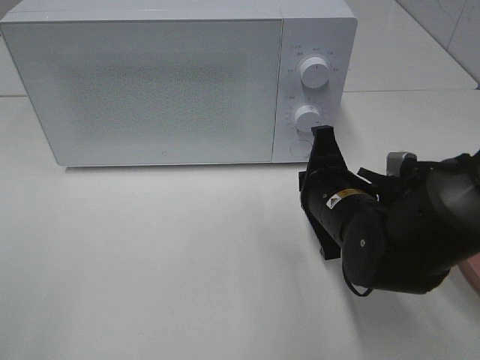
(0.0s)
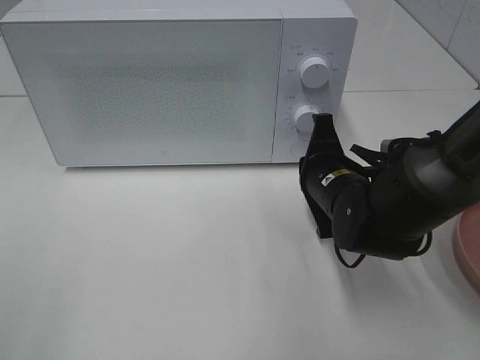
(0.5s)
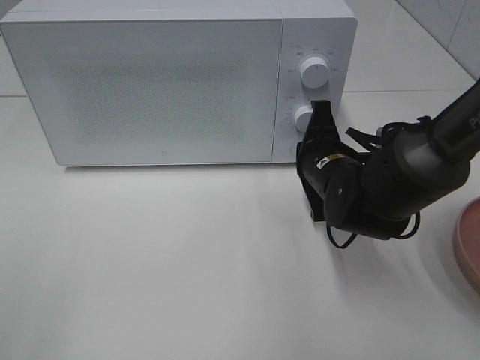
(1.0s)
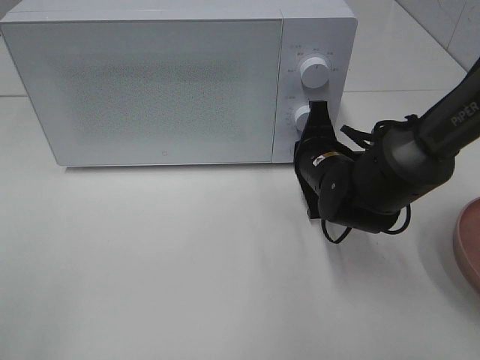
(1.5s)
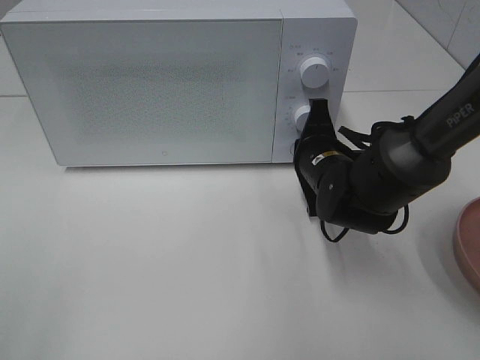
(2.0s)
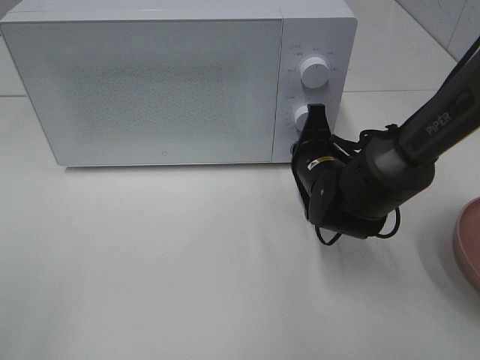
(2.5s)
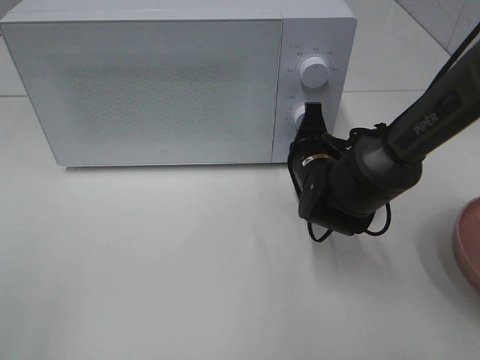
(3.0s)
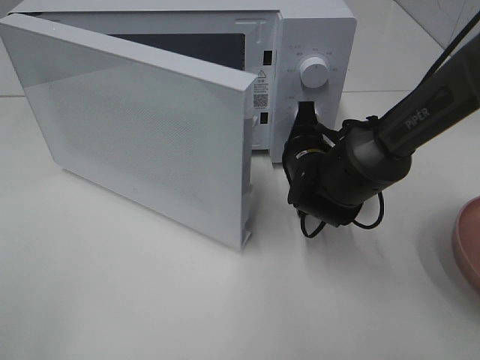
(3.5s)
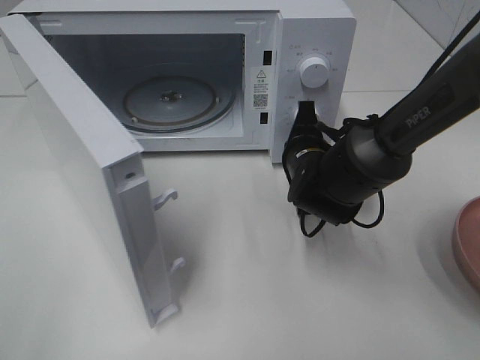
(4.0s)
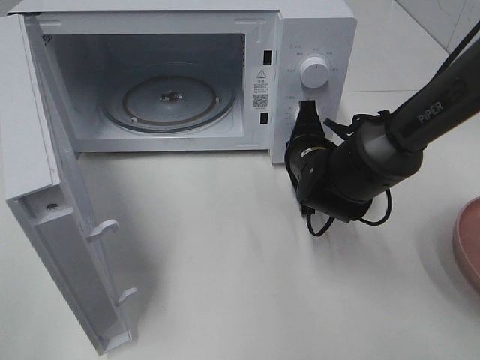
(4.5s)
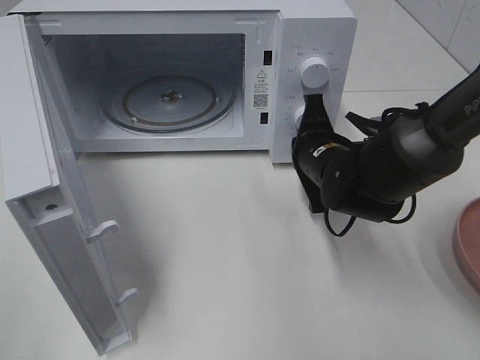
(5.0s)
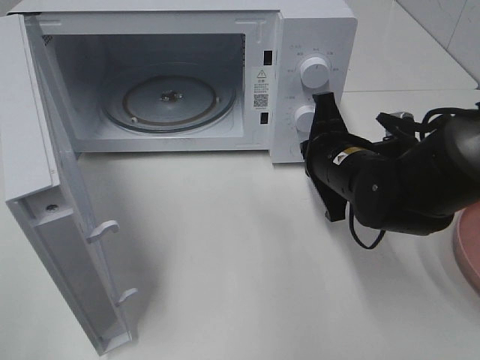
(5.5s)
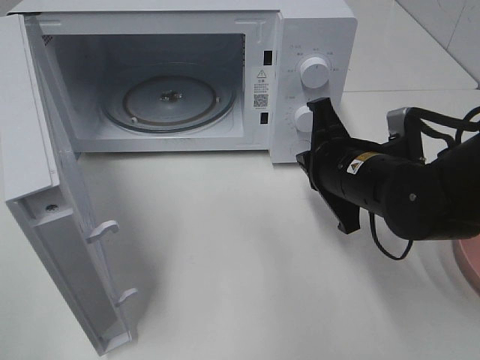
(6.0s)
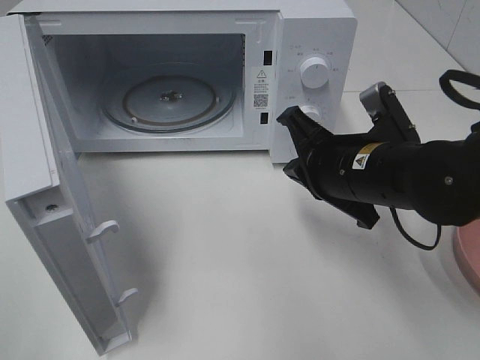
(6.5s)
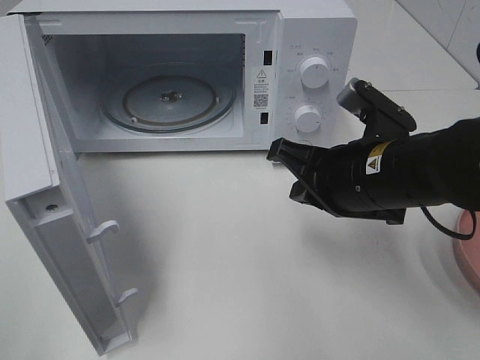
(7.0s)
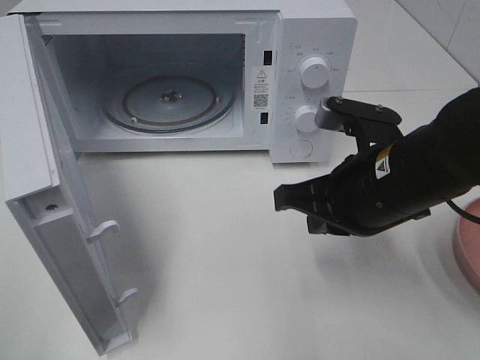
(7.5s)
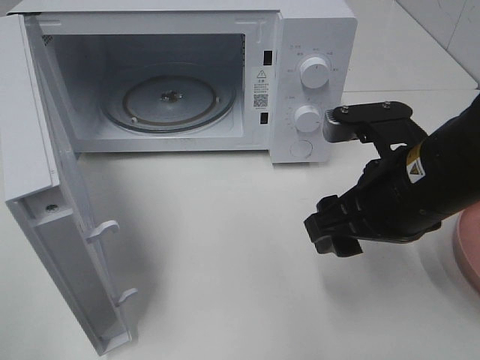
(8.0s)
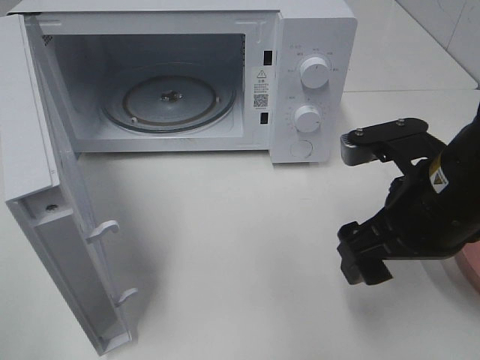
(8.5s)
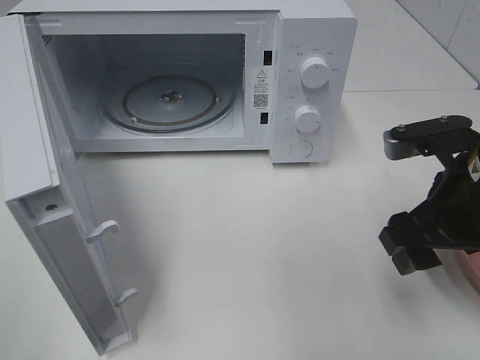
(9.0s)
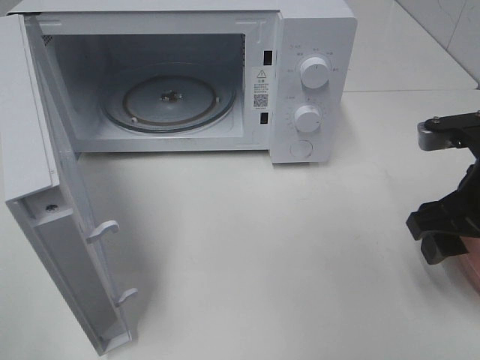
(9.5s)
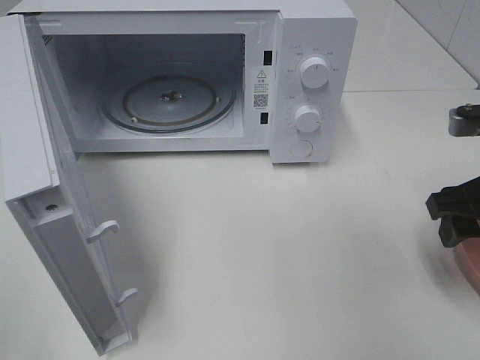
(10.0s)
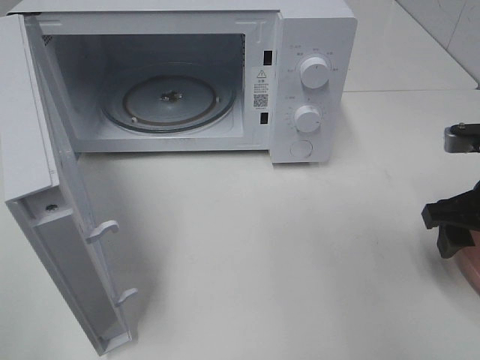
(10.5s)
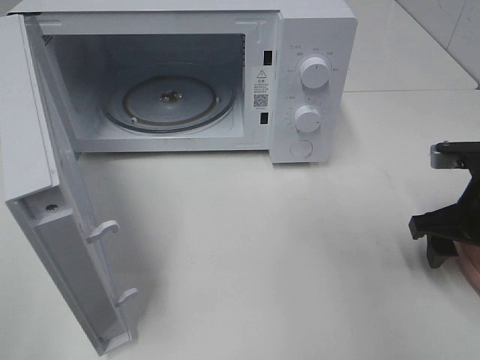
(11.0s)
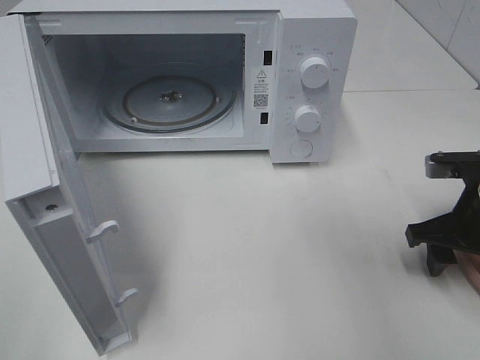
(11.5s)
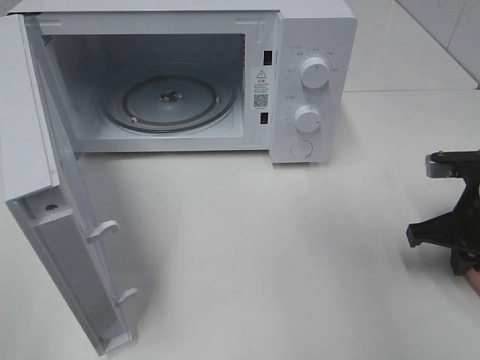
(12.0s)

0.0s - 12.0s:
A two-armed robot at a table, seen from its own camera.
Task of the whole recording: Heat the burger.
Step, 0.0s - 5.0s: Right hand: press the switch.
0.0s - 2.0s: The right gripper travels forward by roughly 5 cm.
4.0s - 6.0s: The right gripper is displaced backward and upward by some 10 cm.
6.0s - 8.0s: The right gripper moves backward and upward, approximately 10 cm, and opens up.
8.0s - 10.0s: The right gripper moves to the right, approximately 10 cm.
10.0s - 12.0s: The right gripper is displaced downward by roughly 5 cm, and closes up.

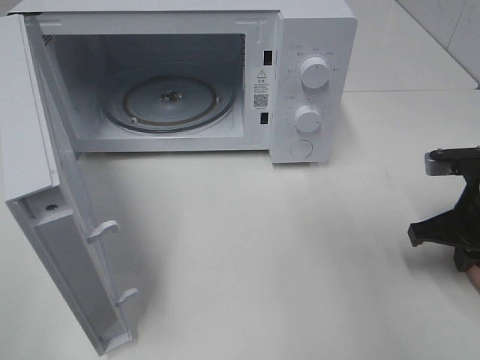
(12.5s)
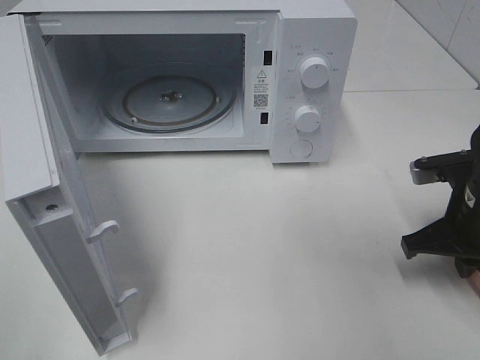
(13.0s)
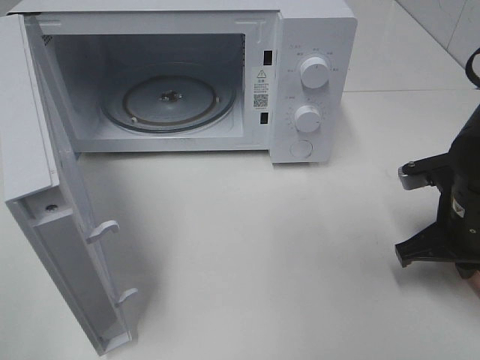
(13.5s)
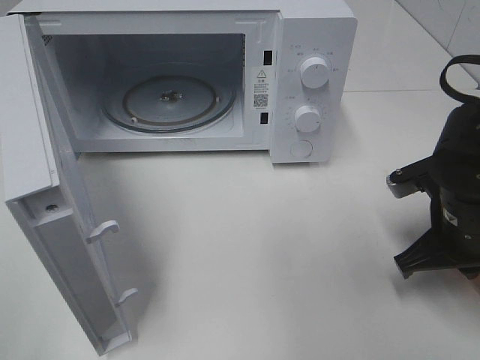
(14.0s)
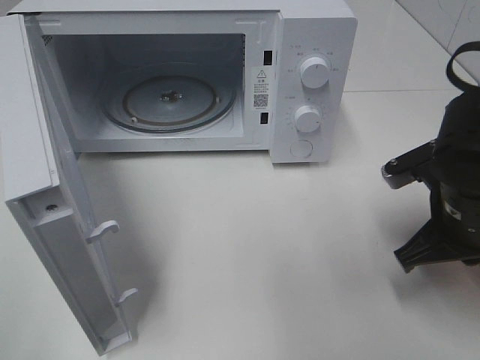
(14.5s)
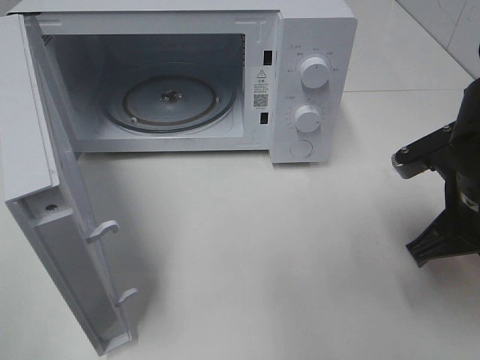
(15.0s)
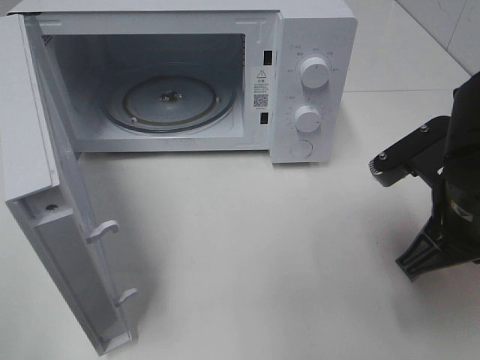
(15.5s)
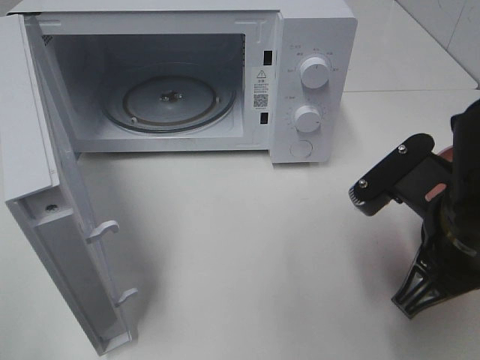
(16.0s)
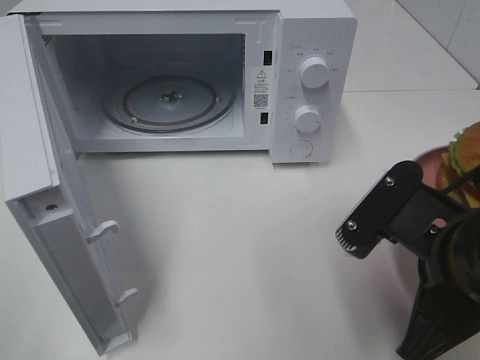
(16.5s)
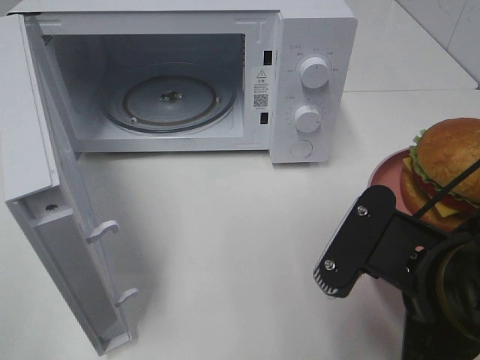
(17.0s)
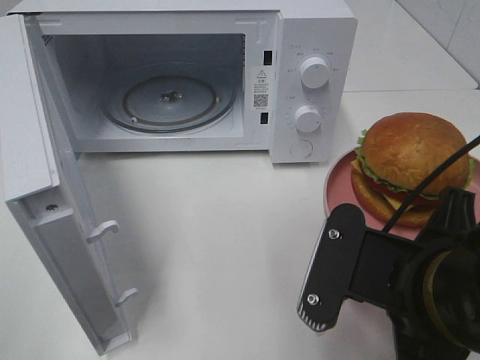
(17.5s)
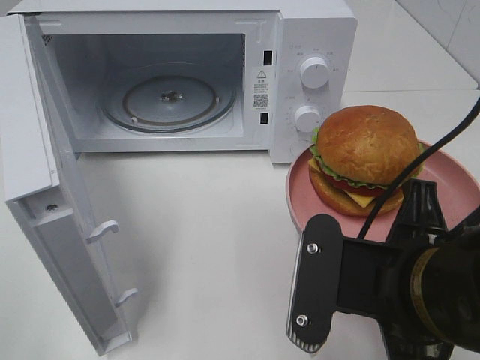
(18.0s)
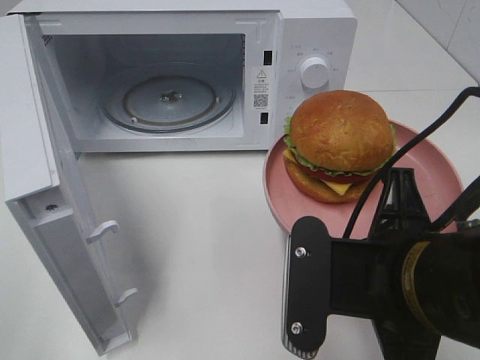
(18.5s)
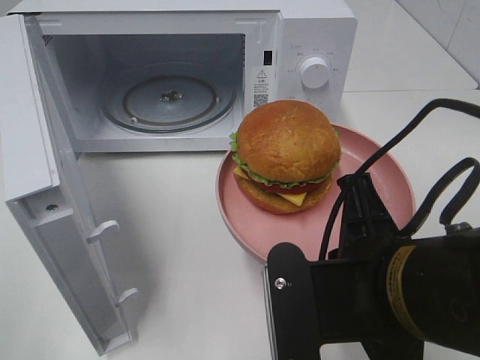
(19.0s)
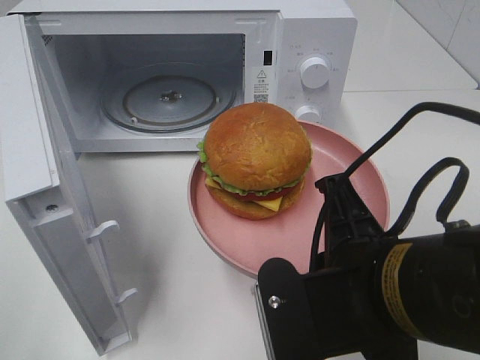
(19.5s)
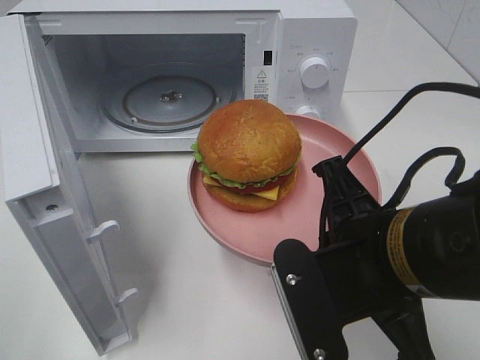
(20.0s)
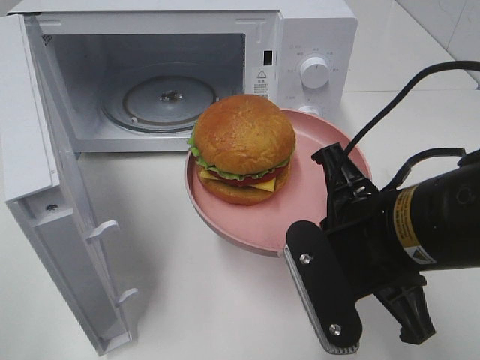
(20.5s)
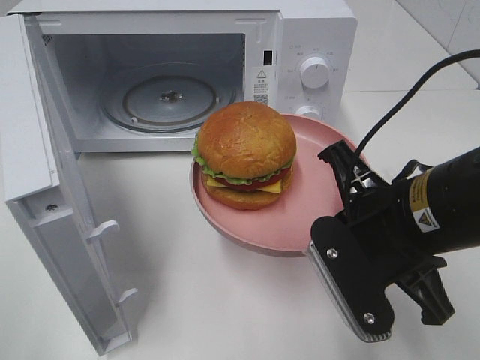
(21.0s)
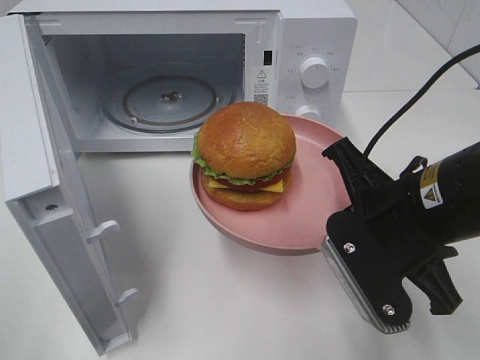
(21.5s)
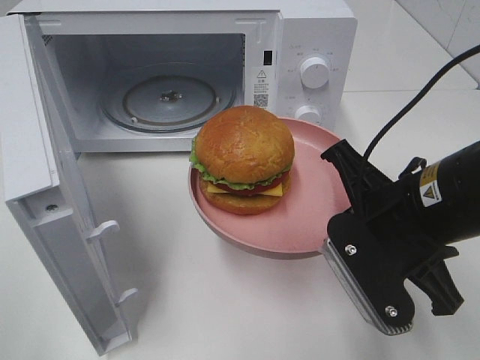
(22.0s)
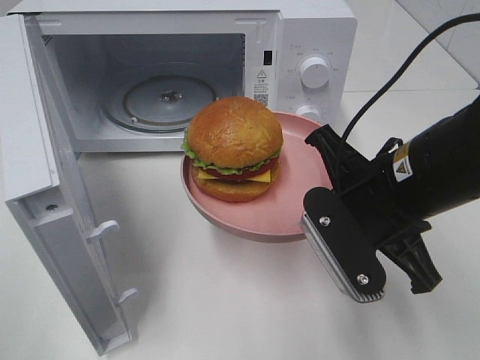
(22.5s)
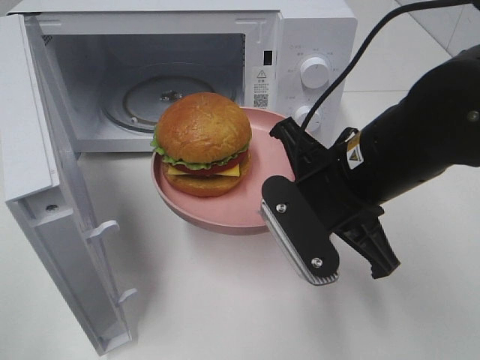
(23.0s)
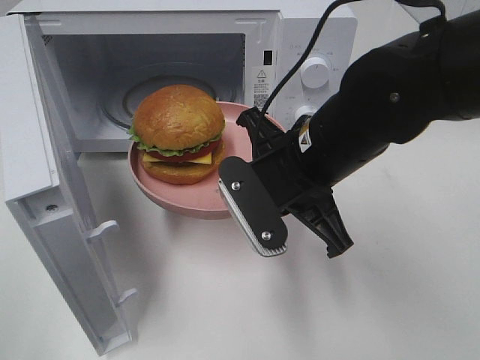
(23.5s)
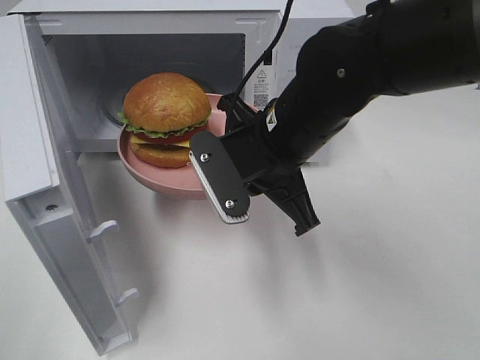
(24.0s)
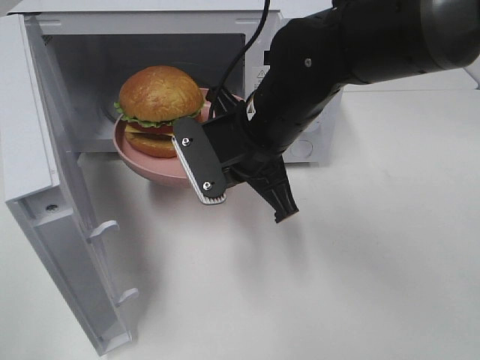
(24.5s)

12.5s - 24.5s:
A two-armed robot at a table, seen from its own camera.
Task of the whole recording: Heat the burger.
12.5s - 14.5s: The right gripper travels to the left by approximately 5 cm.
14.5s - 16.5s: The right gripper moves backward and to the left, roughly 10 cm.
20.5s - 22.5s: The right gripper moves roughly 5 cm.
22.5s - 24.5s: The right gripper heads to the left and forward, covering approximately 15 cm.

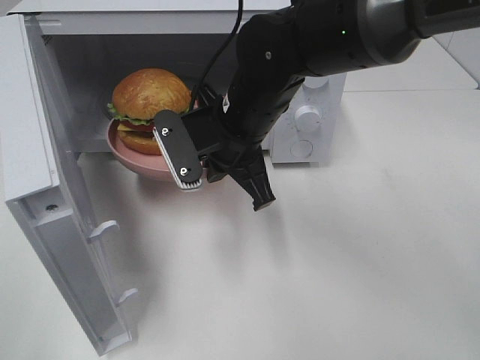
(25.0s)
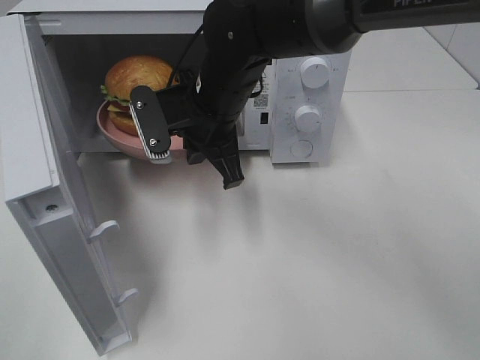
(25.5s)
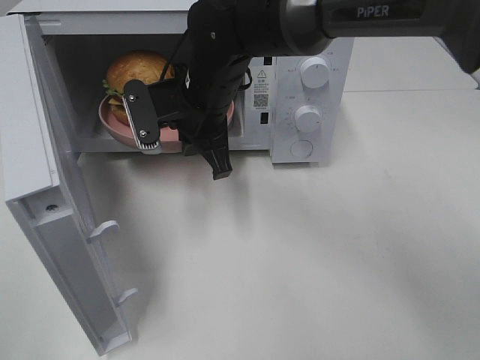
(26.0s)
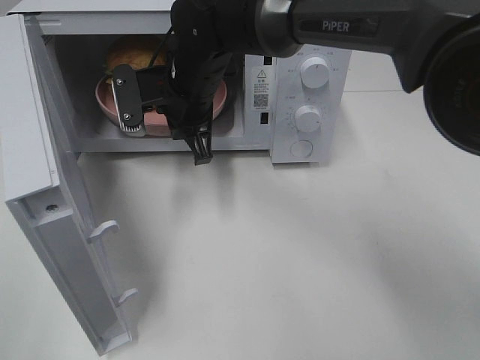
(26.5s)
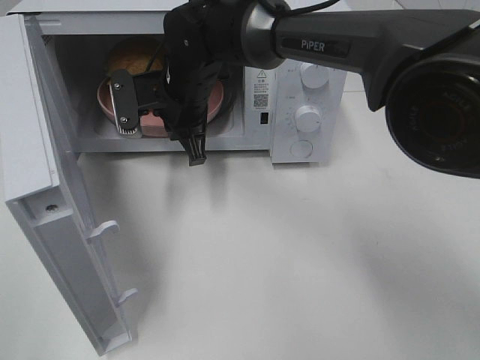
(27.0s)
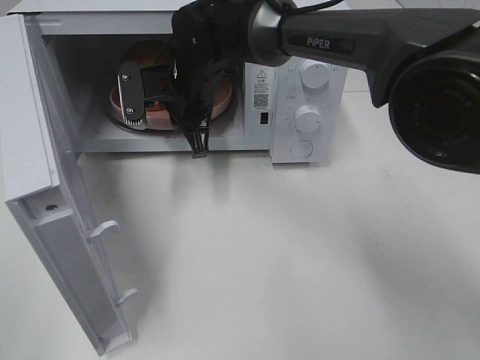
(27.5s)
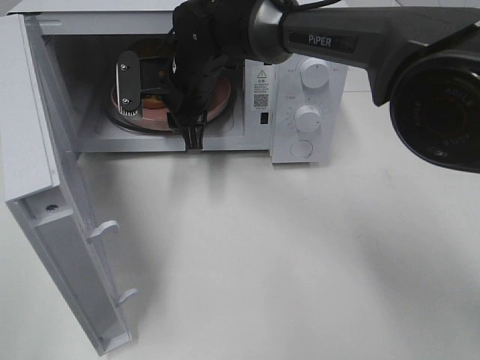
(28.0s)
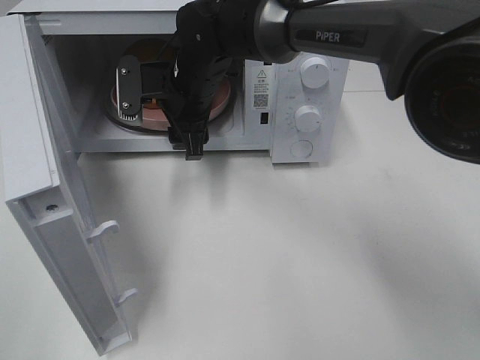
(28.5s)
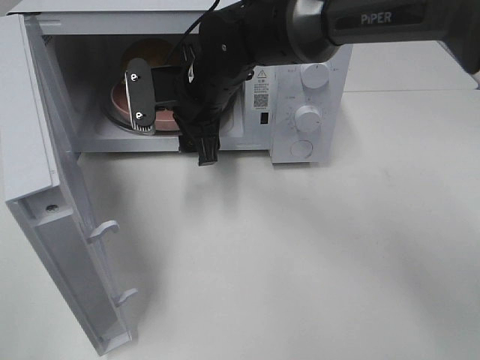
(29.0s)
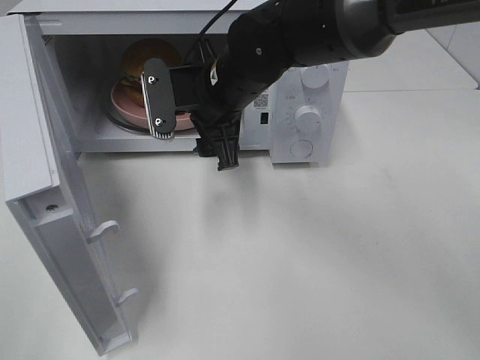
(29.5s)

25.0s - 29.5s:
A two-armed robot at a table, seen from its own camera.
Task of the whole recording: Heat the burger.
Step, 25.0s - 28.0s: Right hand: place the plate in the microwave.
25.0s - 27.0s: The right gripper shifts approximately 10 cm forward and to the left.
27.0s - 29.5s: The right gripper is displaced to the right and backward by about 10 cm, and opens up.
